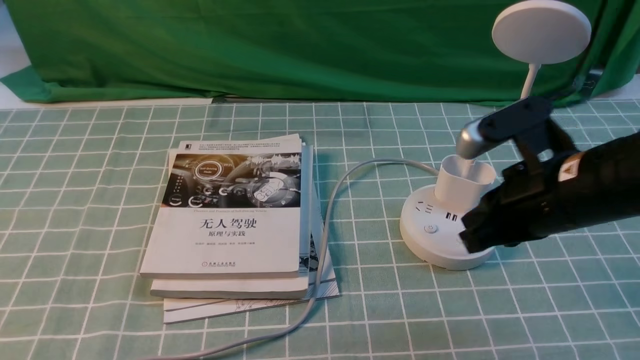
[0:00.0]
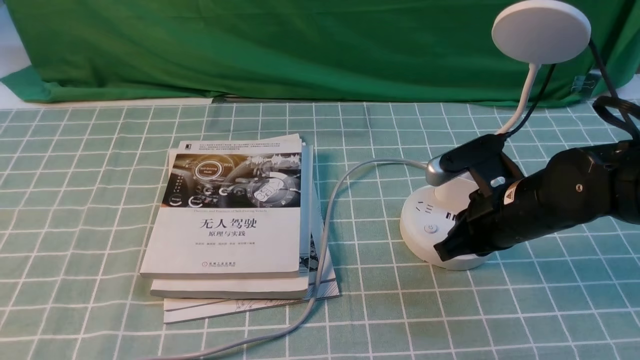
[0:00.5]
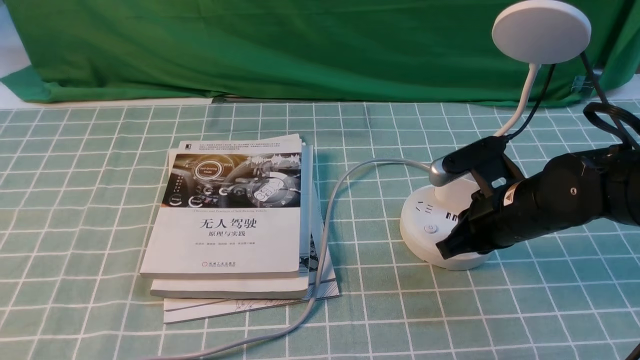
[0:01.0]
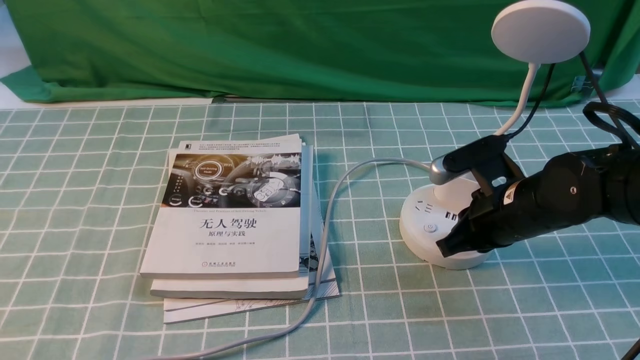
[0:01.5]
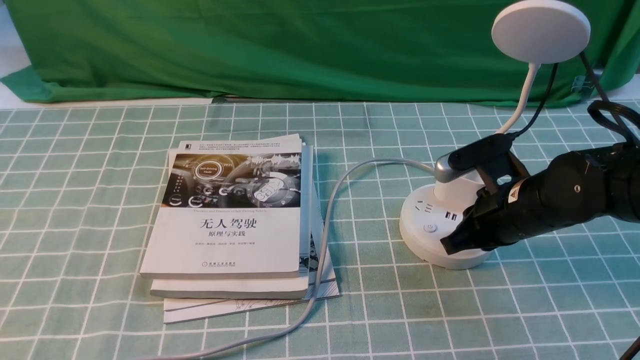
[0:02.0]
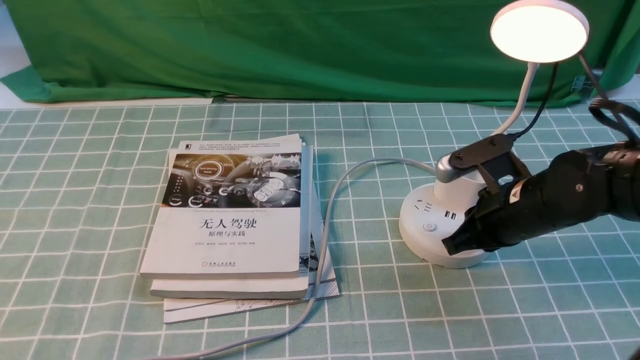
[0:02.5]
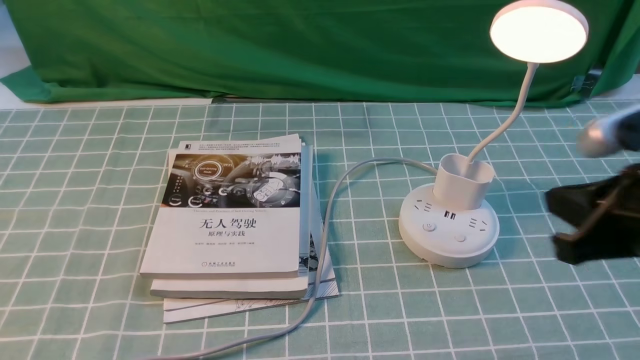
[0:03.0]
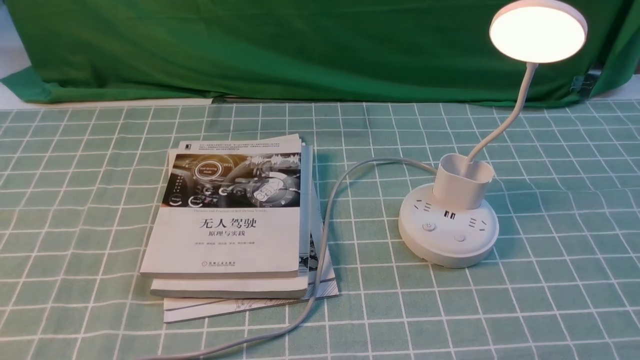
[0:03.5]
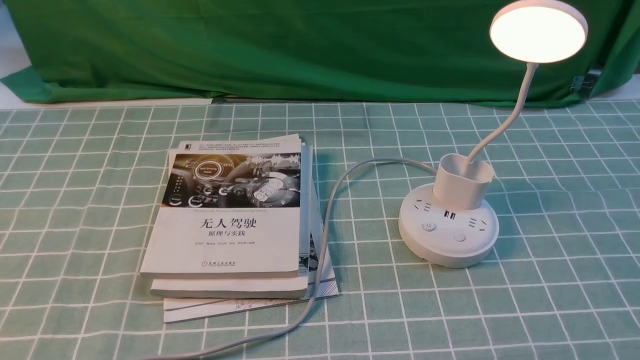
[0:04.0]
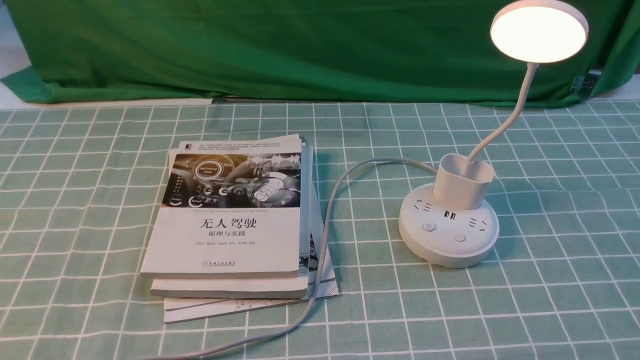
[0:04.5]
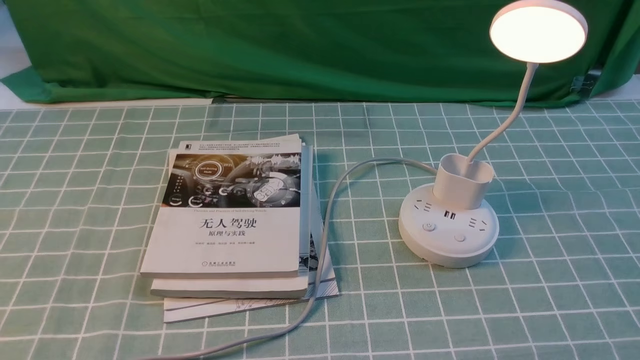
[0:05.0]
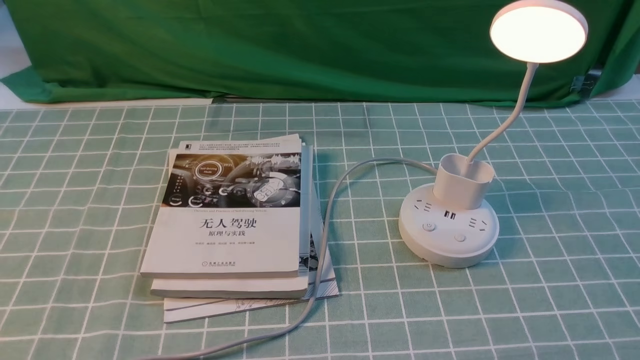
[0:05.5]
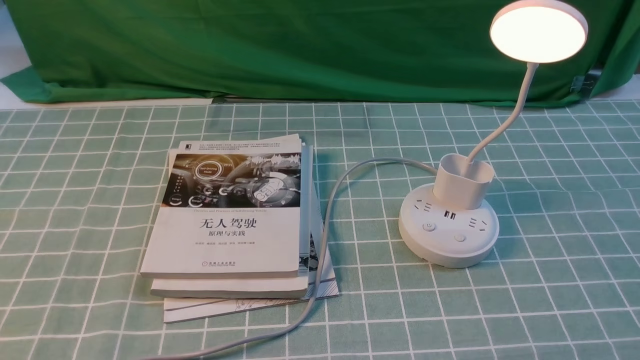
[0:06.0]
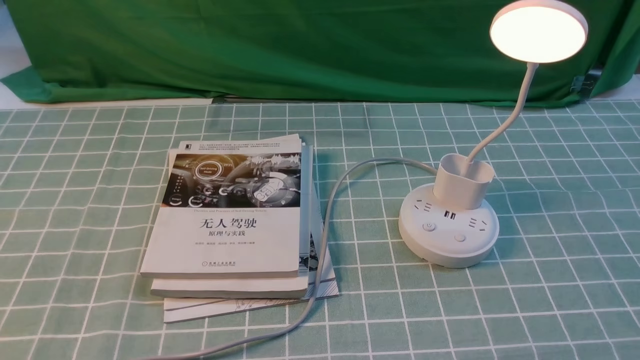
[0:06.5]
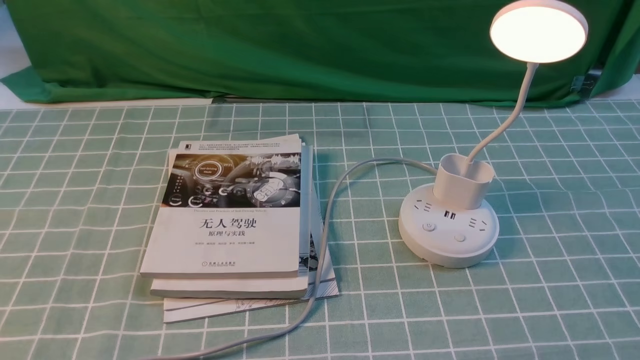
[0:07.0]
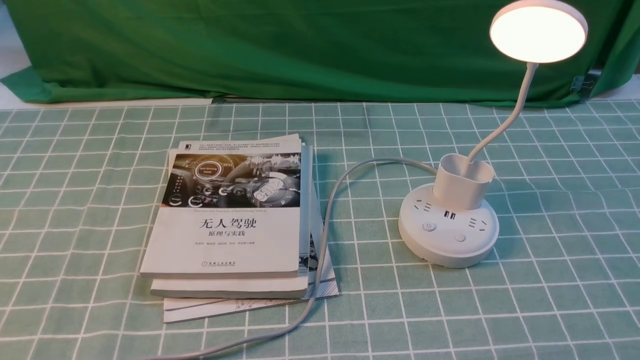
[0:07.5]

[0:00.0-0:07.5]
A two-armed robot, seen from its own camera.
Step, 0:00.0 to 0:02.5: use the right arm to press the button switch on the lamp holder.
0:00.0 to 0:02.0: The right gripper shifts approximately 10 cm downward and forward.
0:02.0 to 0:04.0: The right gripper goes approximately 25 cm backward and to the right.
0:05.5 to 0:07.5: Neither gripper changes place.
